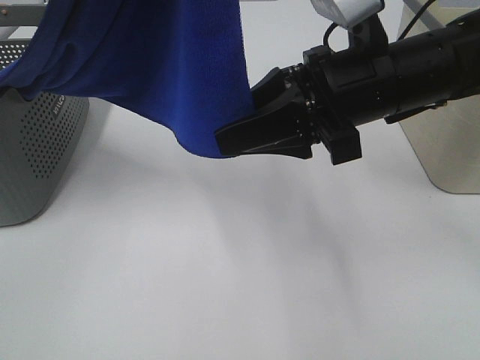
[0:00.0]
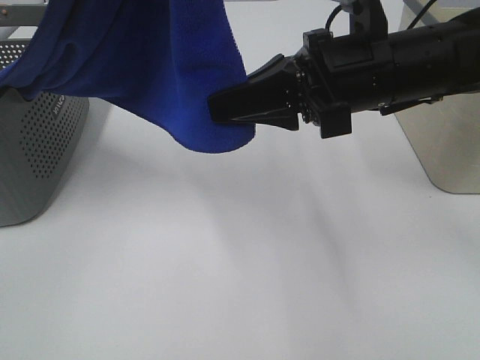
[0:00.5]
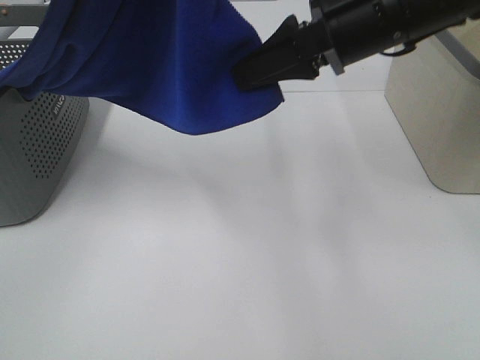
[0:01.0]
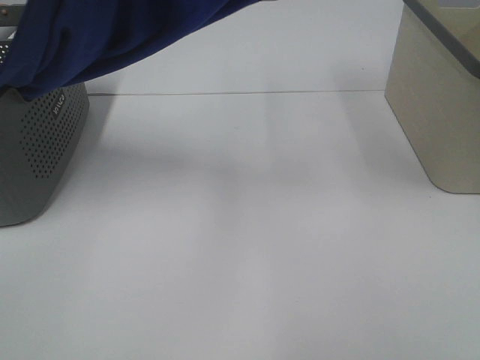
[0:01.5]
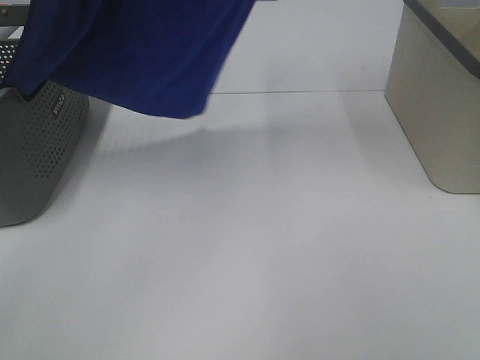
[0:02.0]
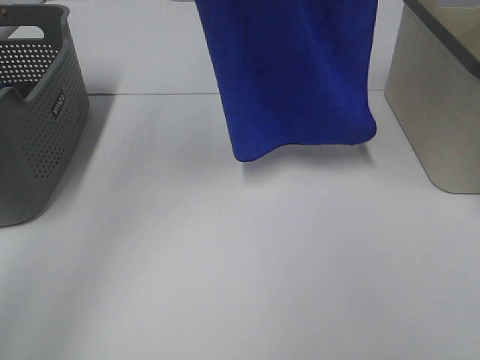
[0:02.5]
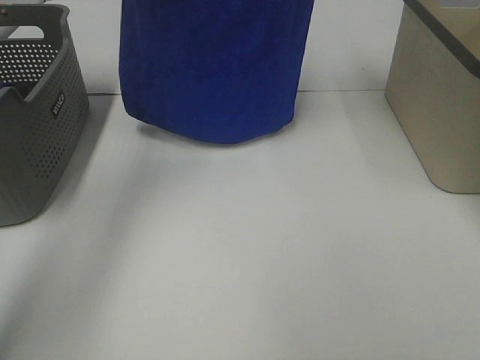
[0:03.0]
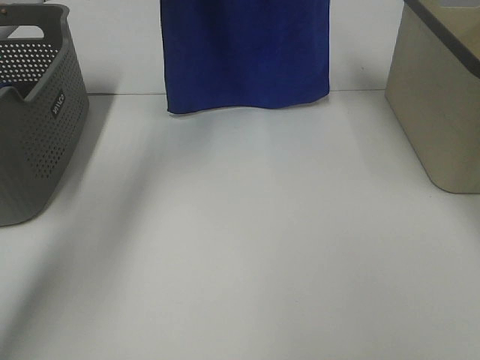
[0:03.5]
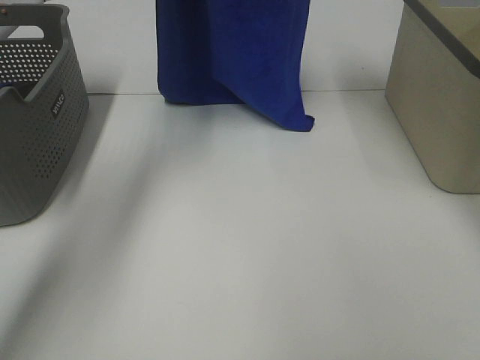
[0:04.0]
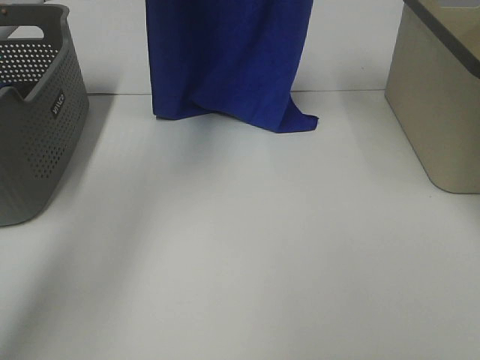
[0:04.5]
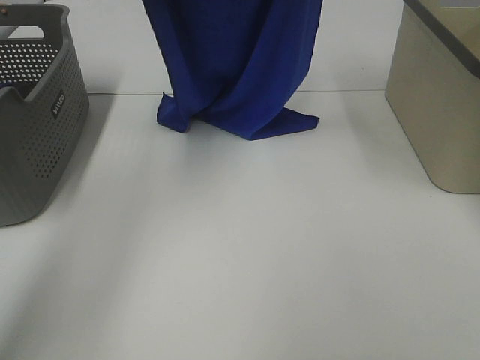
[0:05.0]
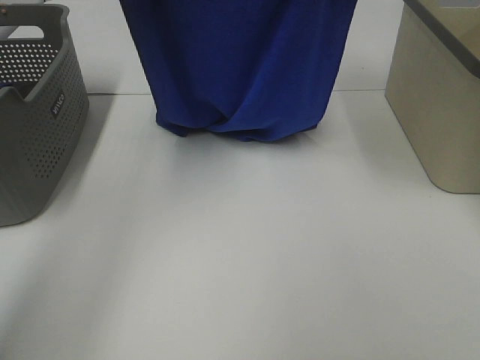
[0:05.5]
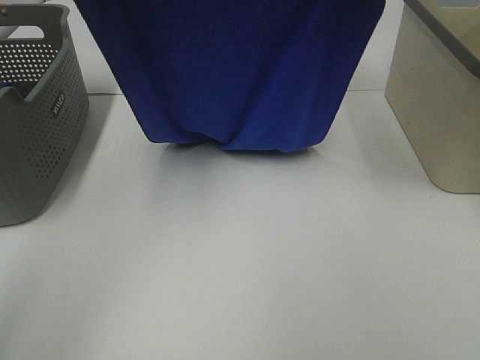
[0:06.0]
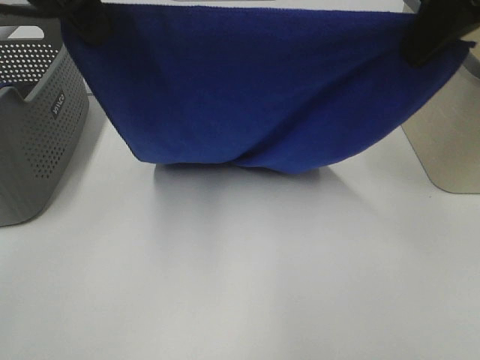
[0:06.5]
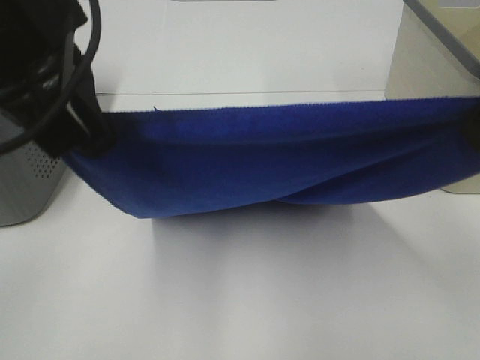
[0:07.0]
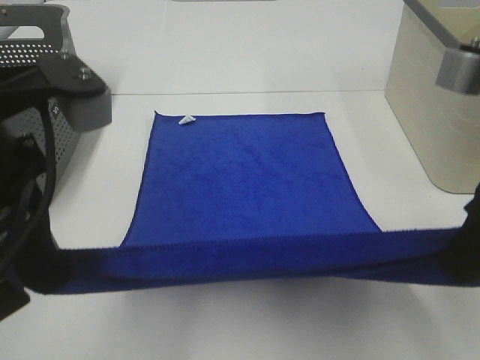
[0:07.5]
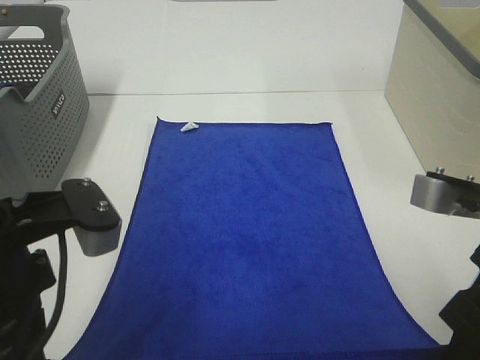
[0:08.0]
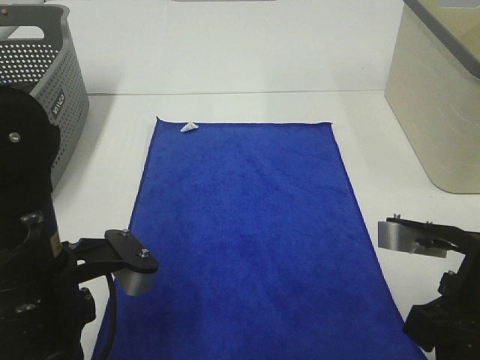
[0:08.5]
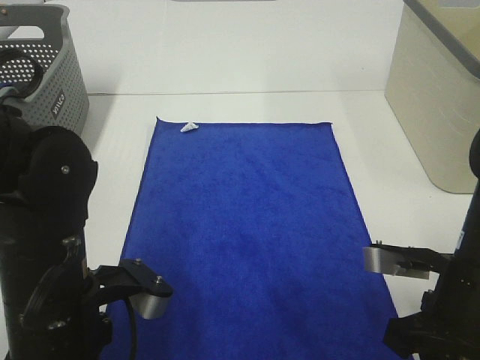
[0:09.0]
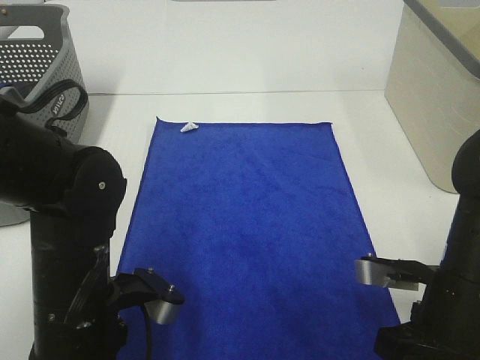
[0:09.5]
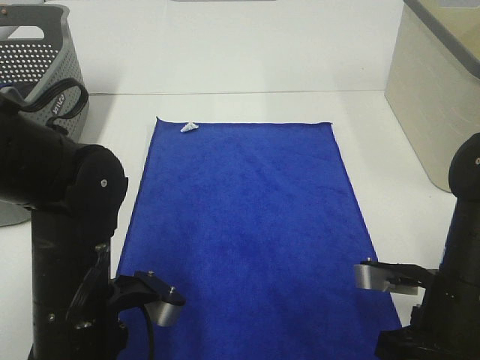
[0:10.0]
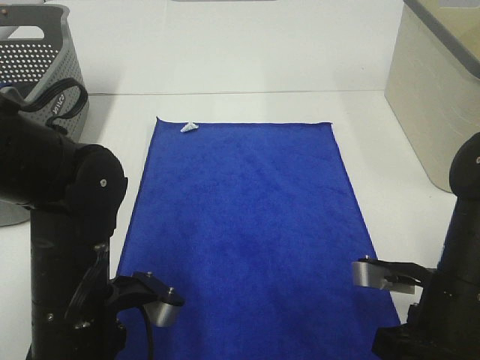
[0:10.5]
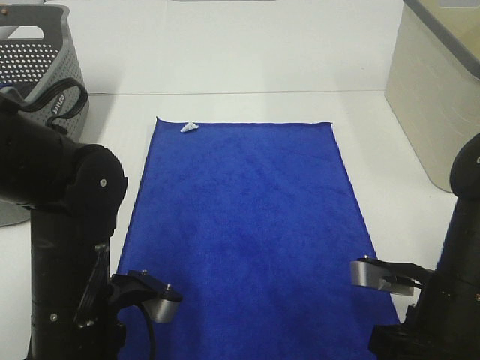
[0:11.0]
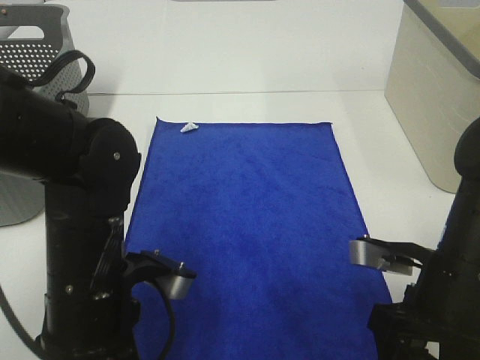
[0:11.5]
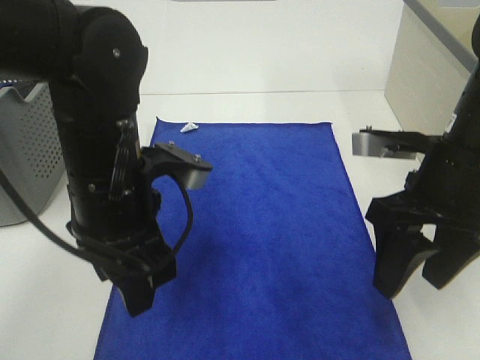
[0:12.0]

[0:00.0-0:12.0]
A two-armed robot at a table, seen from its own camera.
Task of the whole recording: Remove the towel and place it.
Step, 0:00.5 to 0:06.5: Left hand: spread the blue towel flat on the table.
Step, 0:00.5 to 0:06.5: Right hand: spread the blue towel flat on the table.
0:00.0 to 0:02.0: The left gripper shifts roughly 10 cm forward, while the right gripper moves upward, roughly 30 cm, and closes its fingers.
0:02.0 to 0:04.0: The left gripper shifts approximately 20 cm forward and downward; the right gripper travels forward and downward by roughly 15 cm.
0:04.0 to 0:06.0: Both grippers travel together backward, some 15 cm.
0:06.0 to 0:08.0: The grippers both shift backward and downward by about 30 cm.
0:08.0 to 0:10.0: The two grippers go some 10 cm downward.
0:10.0 to 0:12.0: The two grippers go some 10 cm upward and forward. The left gripper opens; the right gripper opens its fingers.

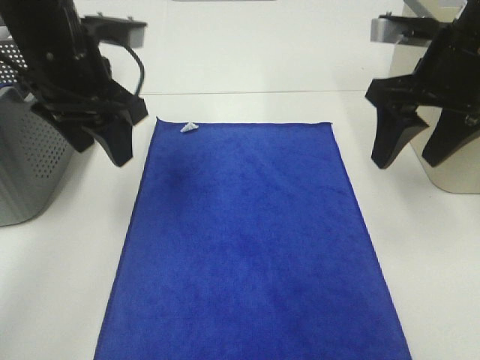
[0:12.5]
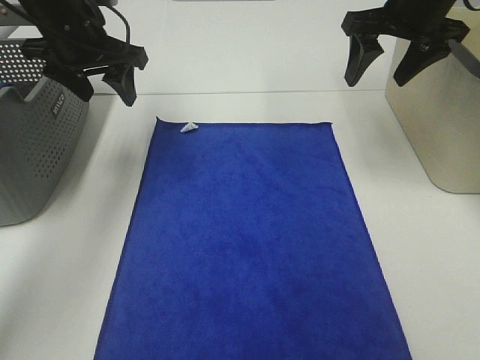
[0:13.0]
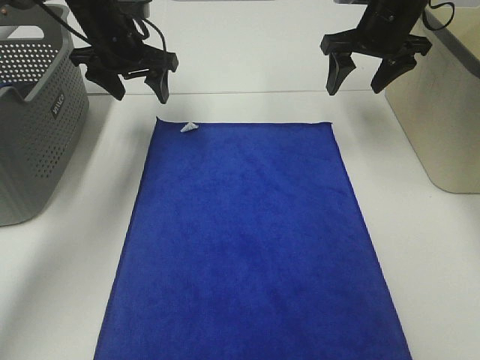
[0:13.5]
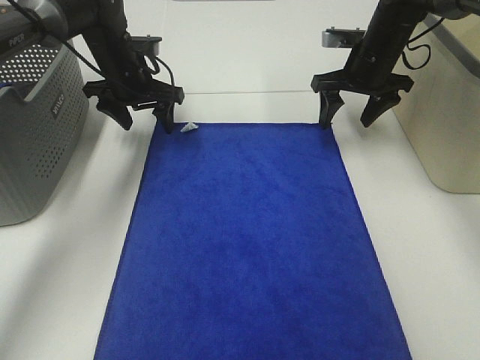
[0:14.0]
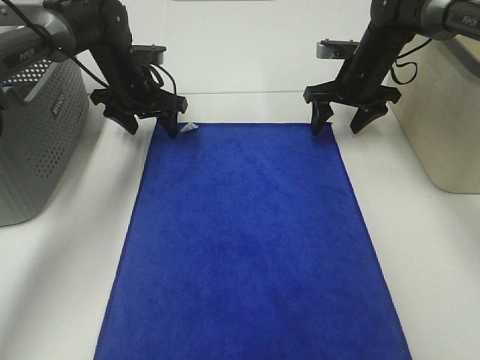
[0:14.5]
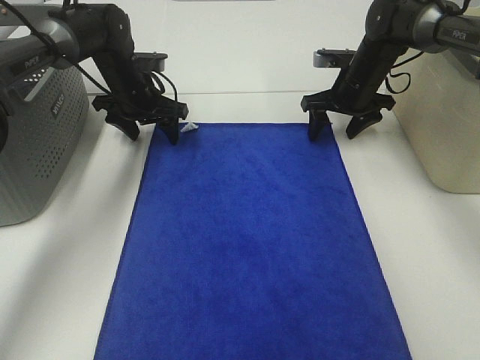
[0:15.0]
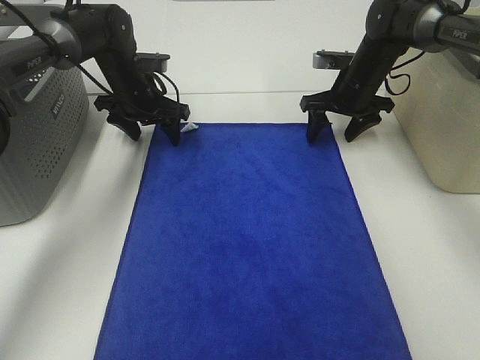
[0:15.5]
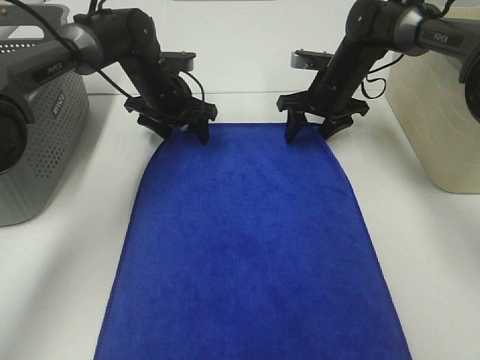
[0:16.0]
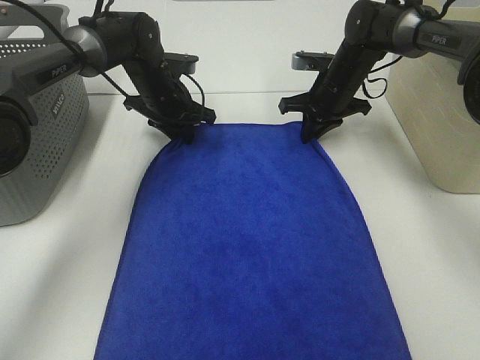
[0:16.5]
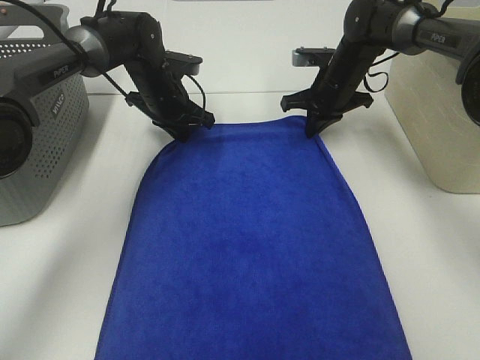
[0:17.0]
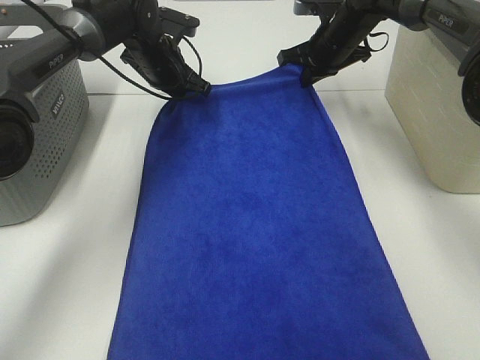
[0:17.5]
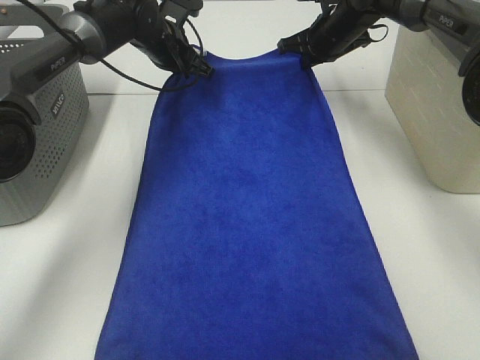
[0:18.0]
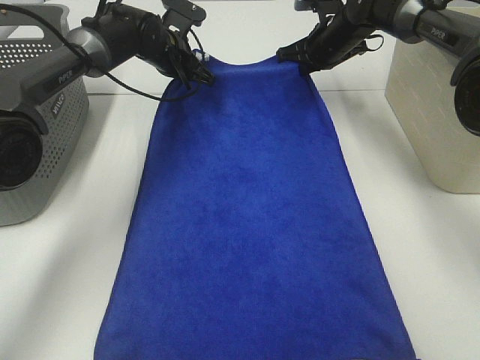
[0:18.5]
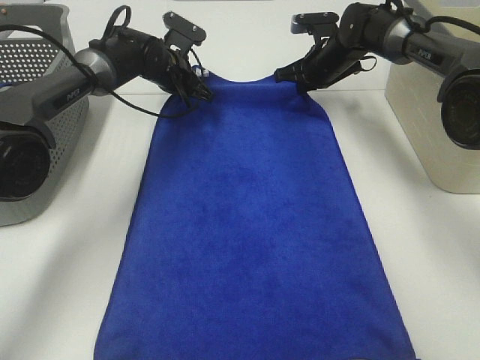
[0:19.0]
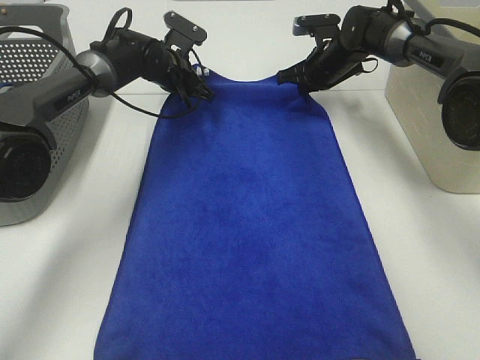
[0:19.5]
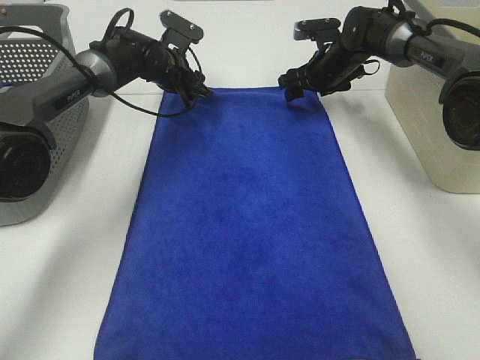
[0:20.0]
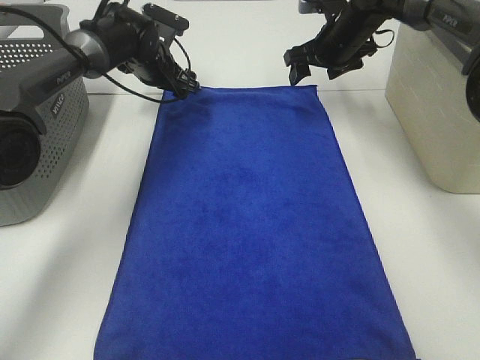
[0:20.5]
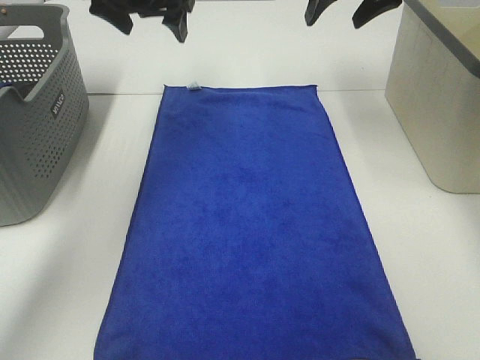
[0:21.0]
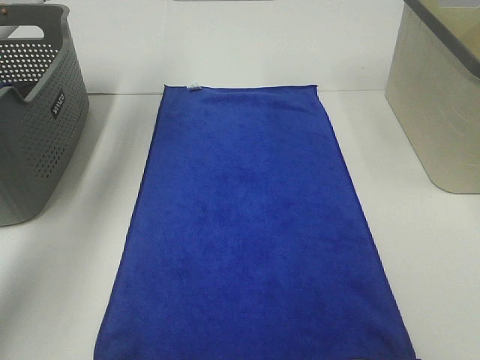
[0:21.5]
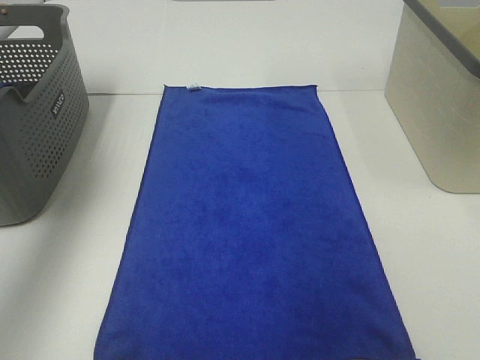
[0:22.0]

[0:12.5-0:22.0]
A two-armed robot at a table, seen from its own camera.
Task of the whole recording: Remove the towel and place it.
0:12.5 to 0:14.5: Both grippers move forward and downward, approximately 25 cm.
0:14.5 to 0:16.5: The right gripper closes its fingers. Meanwhile the left gripper closes.
0:16.5 to 0:18.0: Both grippers travel together upward, some 5 cm.
0:18.0 to 0:20.0: The grippers both shift downward by about 5 cm. The right gripper opens. The left gripper opens its fingers.
0:20.0 to 0:22.0: The left gripper moves upward, backward and to the left, roughly 40 cm; the right gripper shifts roughly 40 cm upward and backward.

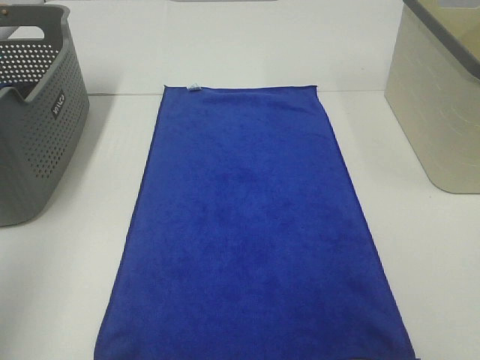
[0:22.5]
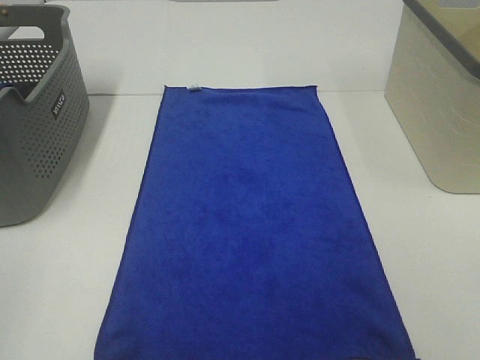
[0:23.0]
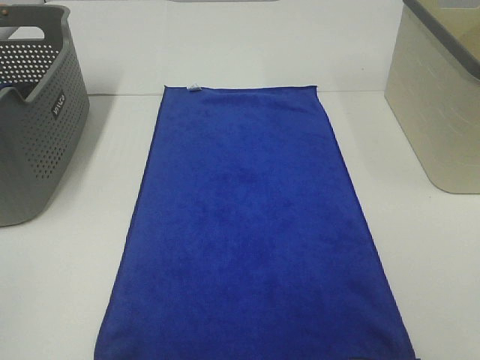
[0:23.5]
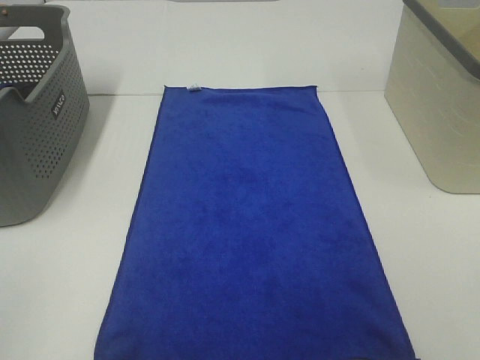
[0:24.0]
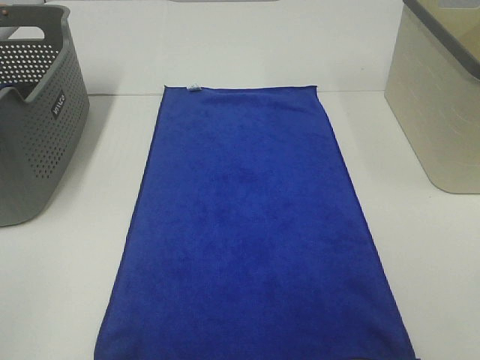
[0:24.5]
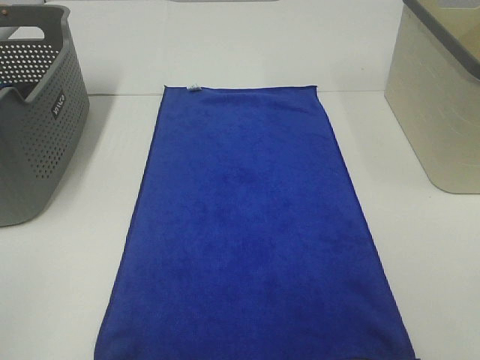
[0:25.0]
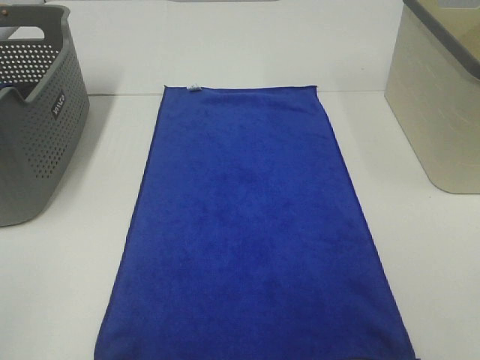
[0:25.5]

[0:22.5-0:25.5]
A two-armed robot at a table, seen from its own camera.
Task of the whole recording: Remove the towel and place it.
0:22.5 to 0:24.0: The left gripper travels backward and downward by roughly 15 cm.
0:24.0 to 0:25.5: Neither gripper changes place.

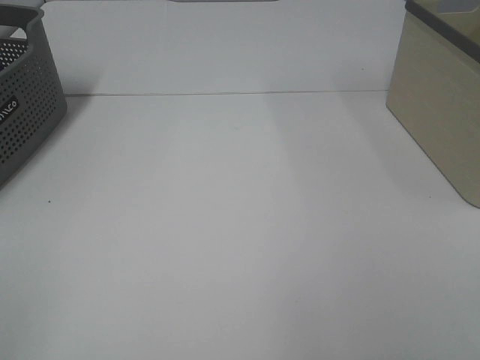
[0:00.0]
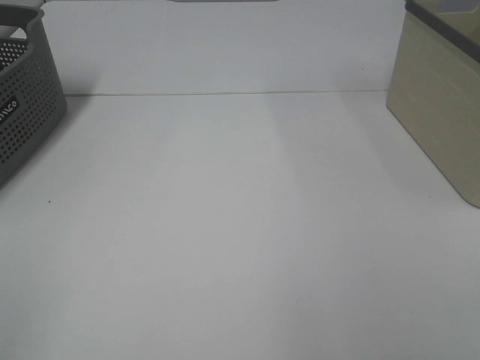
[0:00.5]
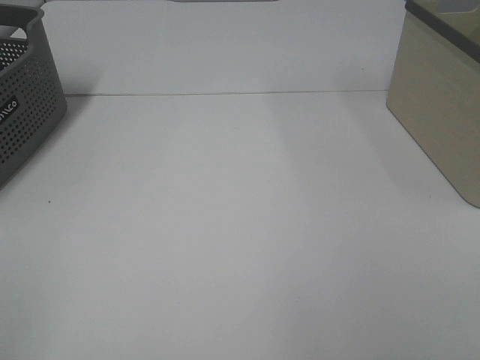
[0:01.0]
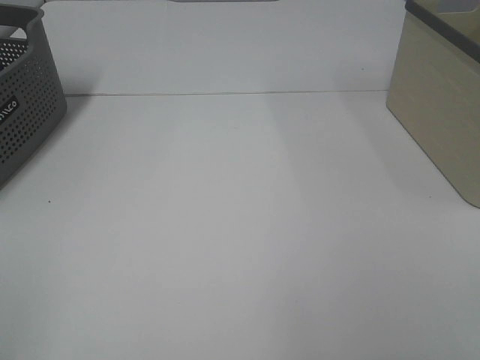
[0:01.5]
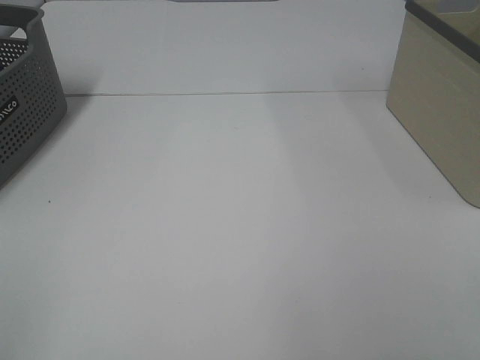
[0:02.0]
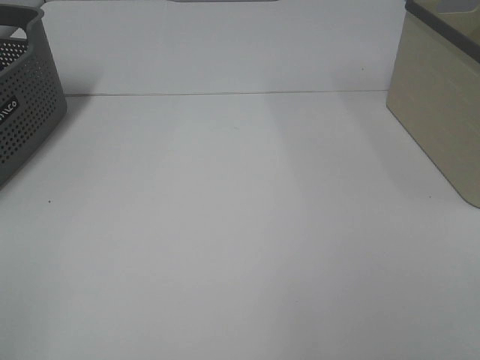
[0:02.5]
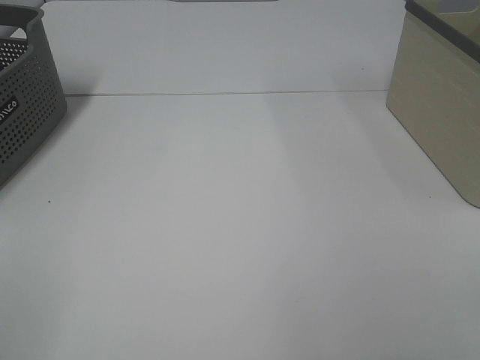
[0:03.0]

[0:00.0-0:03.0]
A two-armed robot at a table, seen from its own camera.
Task of the whole recording: Remove the towel and place it.
0:00.0 to 0:03.0: Both grippers stay put.
